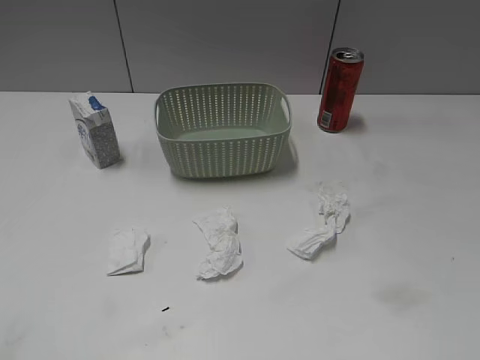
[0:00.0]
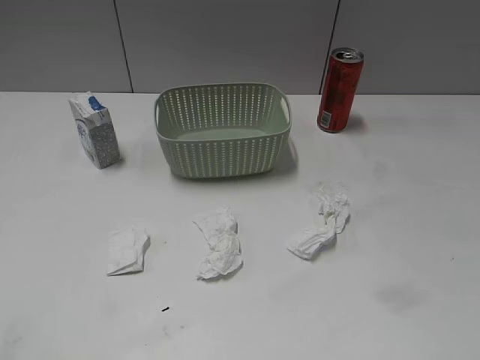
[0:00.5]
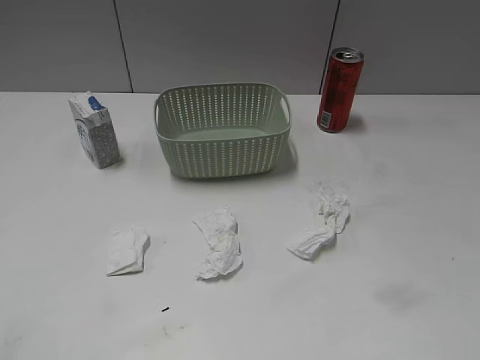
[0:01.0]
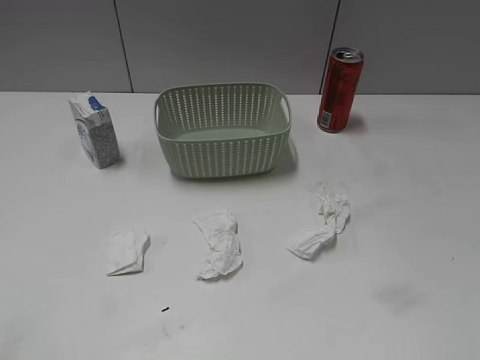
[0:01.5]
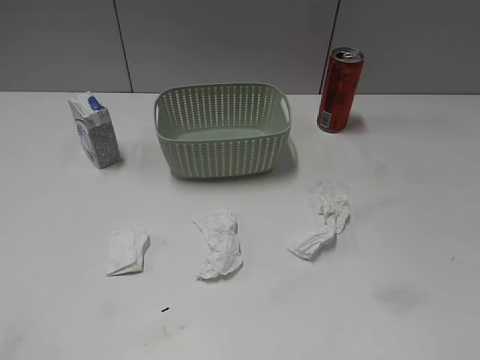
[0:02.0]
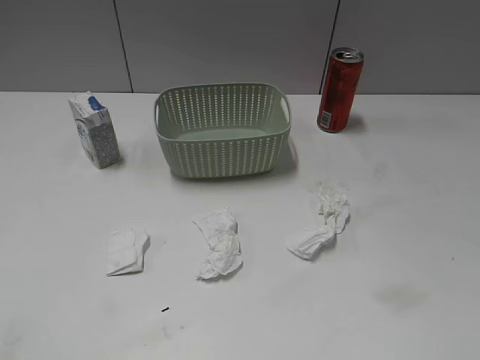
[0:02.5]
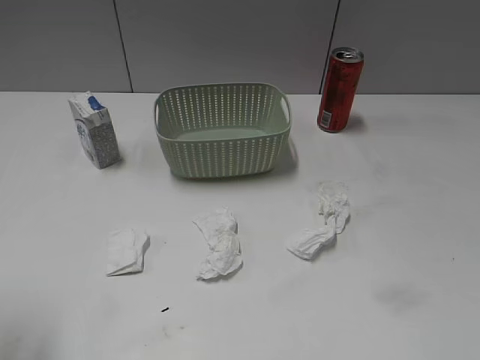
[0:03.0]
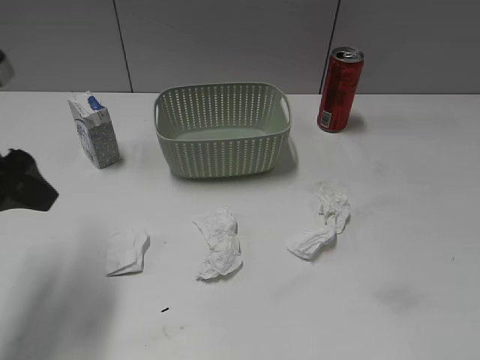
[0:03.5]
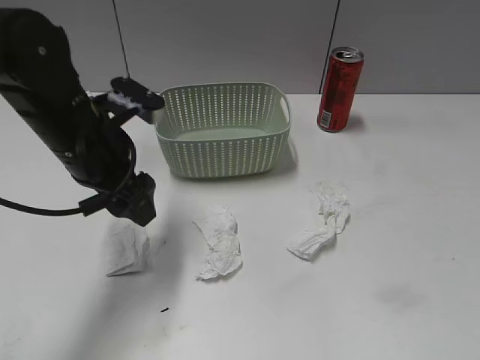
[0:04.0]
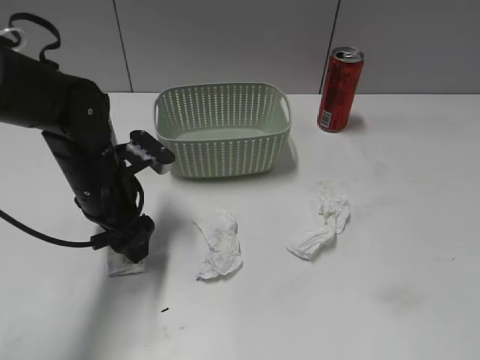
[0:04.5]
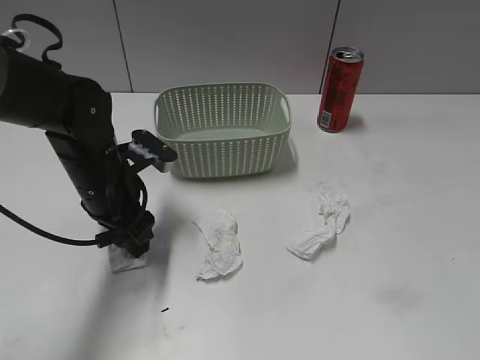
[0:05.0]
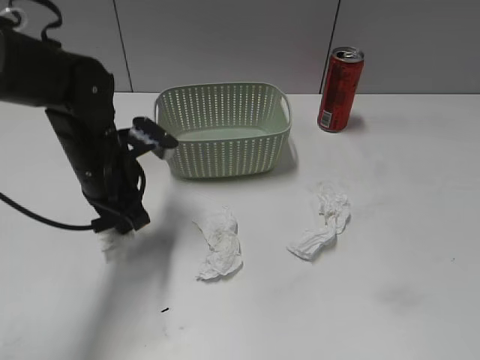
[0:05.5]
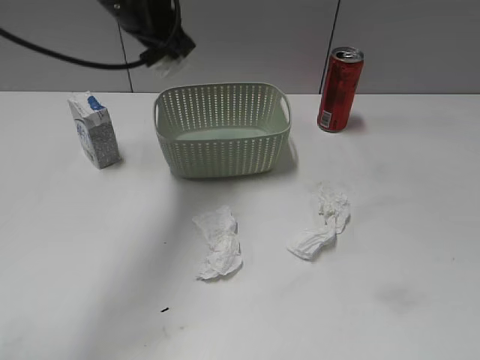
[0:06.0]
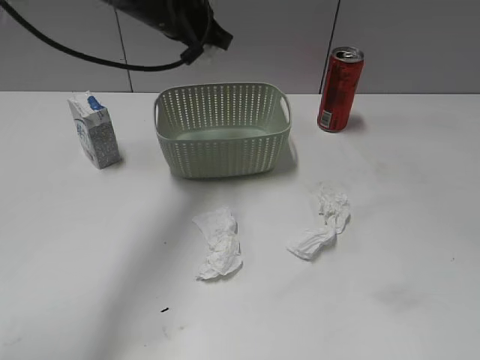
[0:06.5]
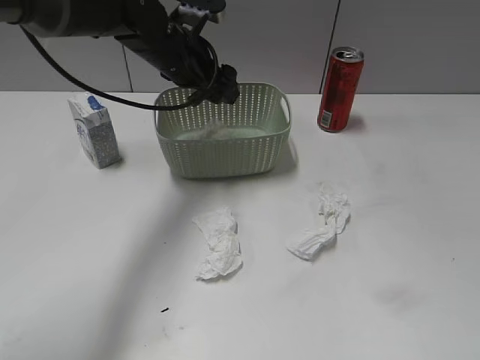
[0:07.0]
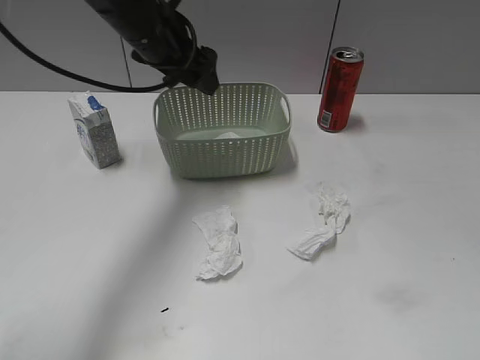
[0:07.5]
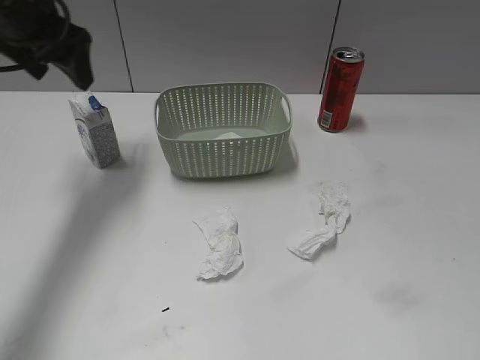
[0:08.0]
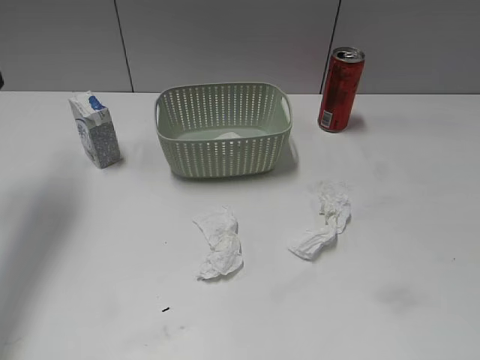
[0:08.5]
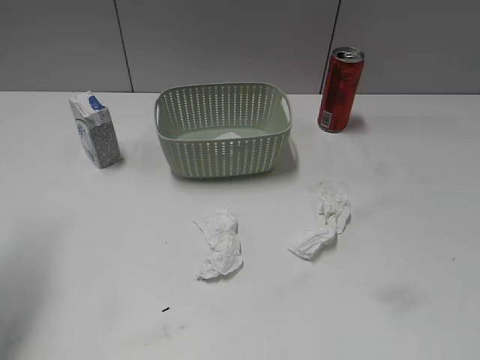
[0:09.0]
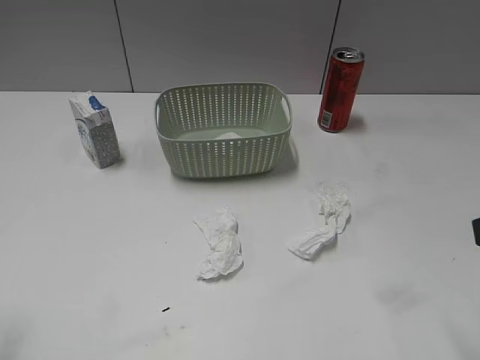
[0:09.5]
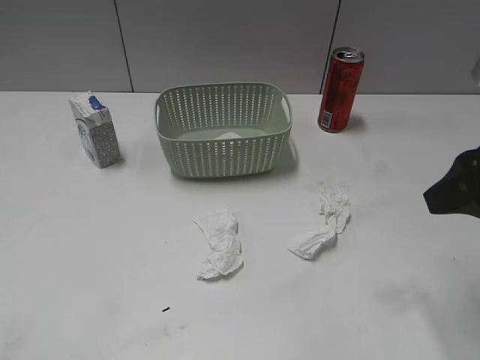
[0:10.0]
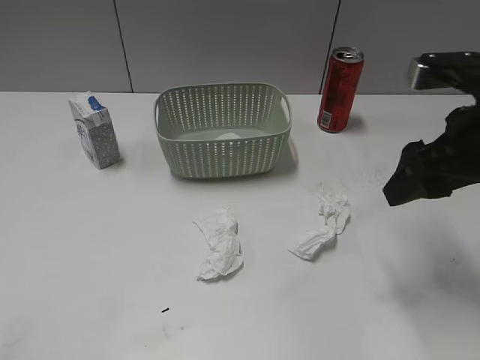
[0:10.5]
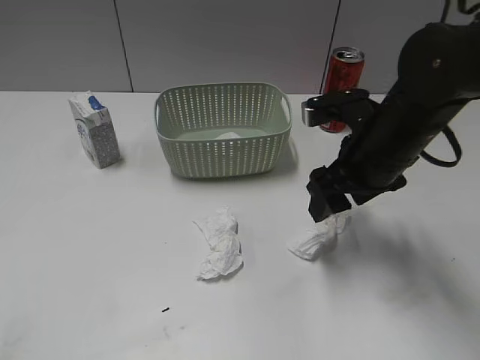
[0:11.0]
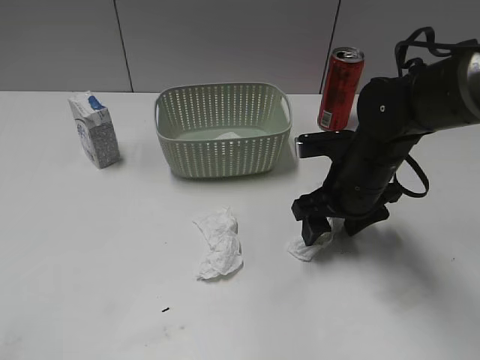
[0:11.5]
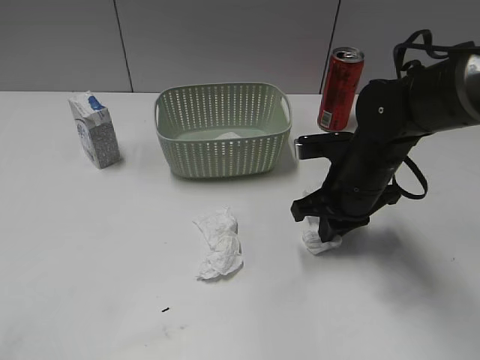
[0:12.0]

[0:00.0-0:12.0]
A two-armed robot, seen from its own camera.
Step, 0:03.5 to 0:05.0: Grasp the waste paper with left gripper.
Step, 0:05.5 to 0:07.5: Place the waste paper in the basket with left gripper.
0:02.0 to 0:04.0: The left gripper shifts some 35 cm forward and to the right.
0:04.0 to 0:06.0: The left gripper travels upward and forward by roughly 15 cm, and closes.
0:06.0 to 0:08.0: The left gripper heads to the left, covering some 10 cm, and opens.
0:08.0 to 0:10.0: The right gripper moves forward, roughly 20 cm; the left gripper moves backward, about 35 cm.
0:10.0 to 0:12.0: The right gripper goes approximately 25 cm downward, forward and to the left, and closes.

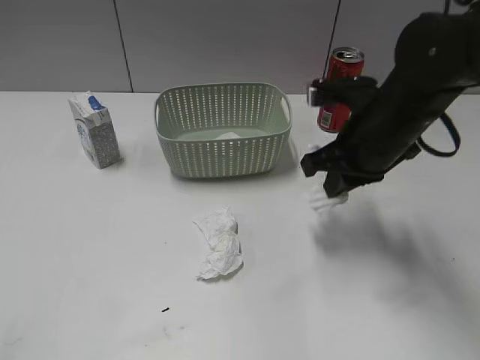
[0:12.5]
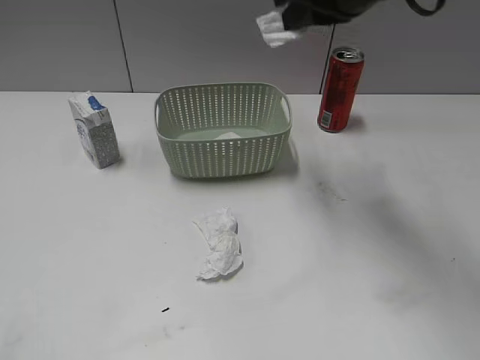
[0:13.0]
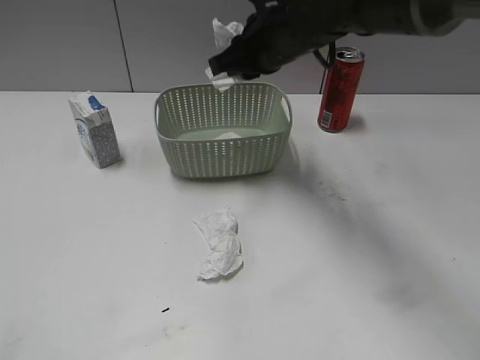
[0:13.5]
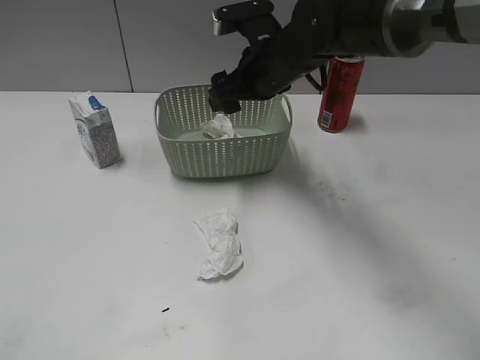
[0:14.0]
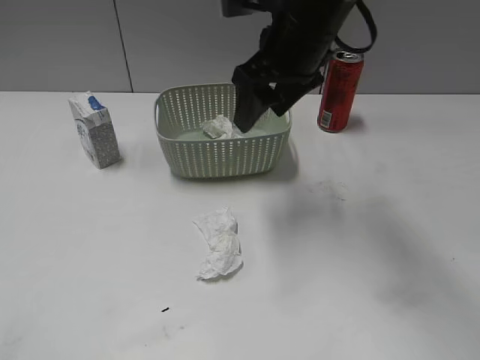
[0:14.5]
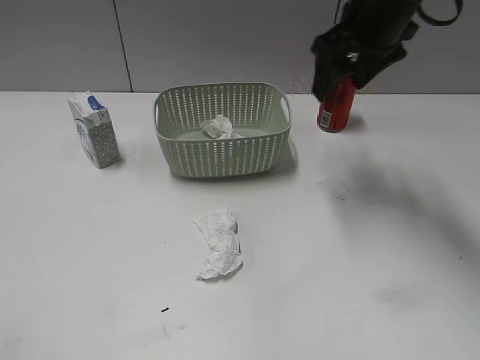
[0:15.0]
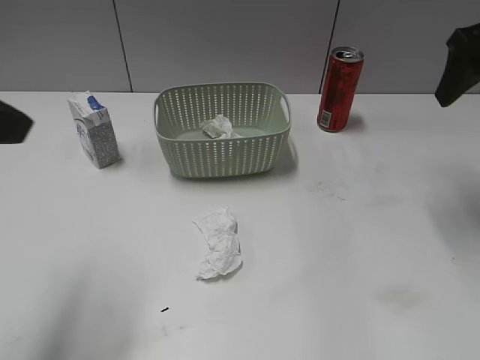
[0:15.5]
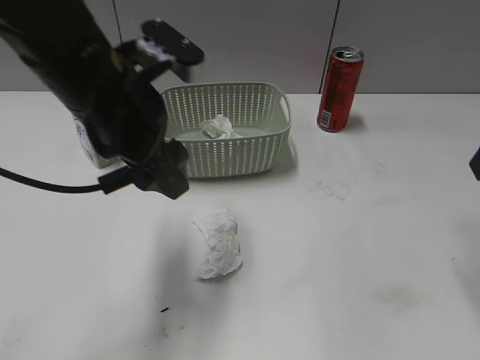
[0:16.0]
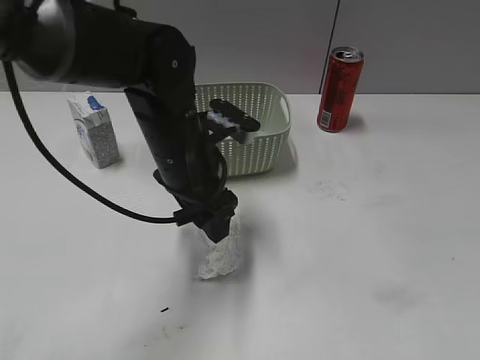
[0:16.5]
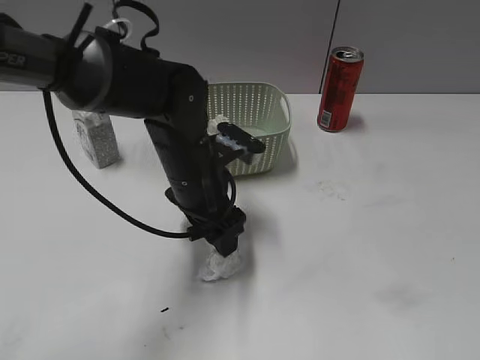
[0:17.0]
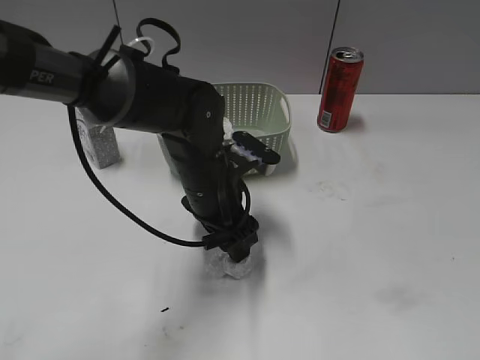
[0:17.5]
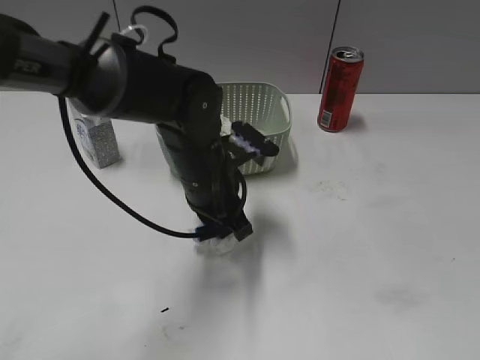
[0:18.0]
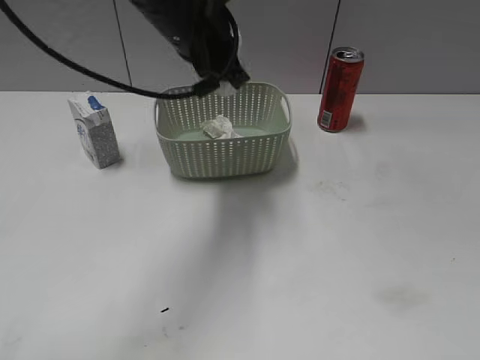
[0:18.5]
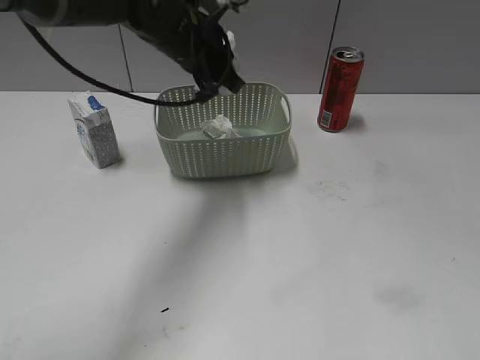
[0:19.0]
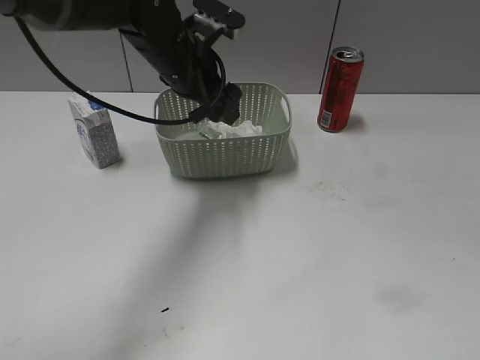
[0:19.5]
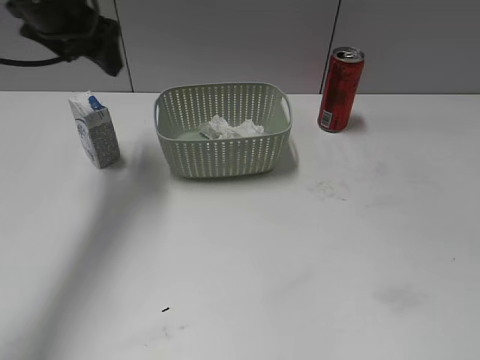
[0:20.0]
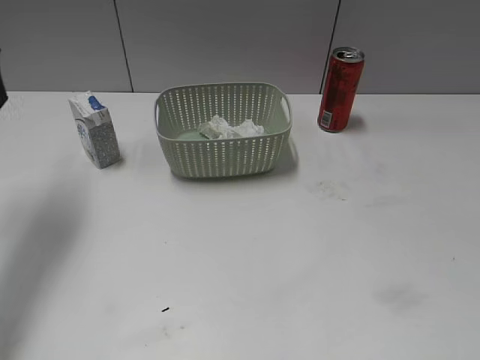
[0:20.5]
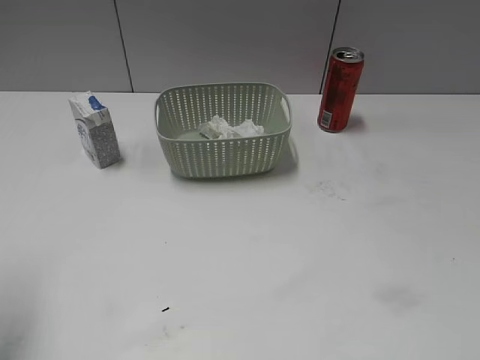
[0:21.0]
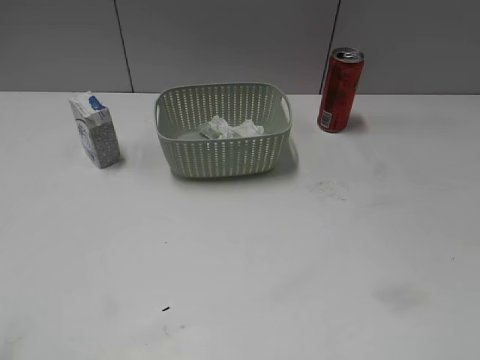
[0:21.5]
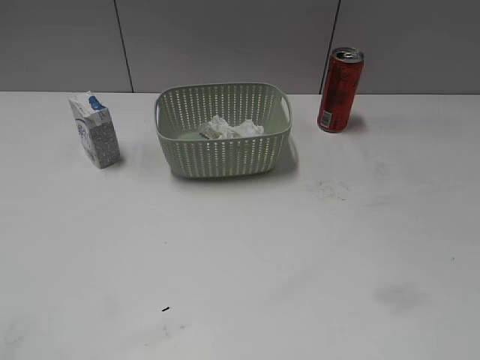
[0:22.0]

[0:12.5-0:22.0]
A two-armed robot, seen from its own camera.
Step, 0:12.5 to 0:14.0: Place the waste paper in the basket with right gripper.
Step, 0:14.5 to 0:18.0: Grasp the waste paper with left gripper.
Step, 0:18.5 to 0:19.5: Place the waste paper in the basket with left gripper.
0:12.5 to 0:14.5: The right gripper goes up and down, some 15 cm each way, reversing 2 times, and opens up.
0:14.5 to 0:16.5: The left gripper is displaced forward and to the right by some 40 cm. Meanwhile the right gripper shifts some 30 cm to the right and backward.
0:16.5 to 0:18.0: The left gripper ends up about 5 cm from where it was, and closes its fingers. Meanwhile the right gripper goes about 10 cm backward.
0:18.0 to 0:20.0: The left gripper swings up and down, some 15 cm each way, with 2 reversals, and opens its fingers.
0:20.0 to 0:22.0: The left gripper goes approximately 35 cm backward.

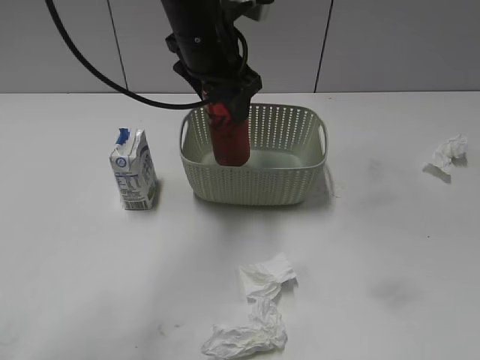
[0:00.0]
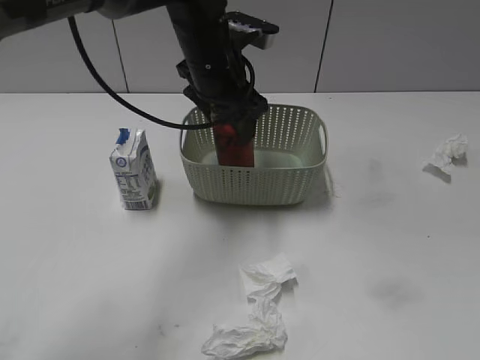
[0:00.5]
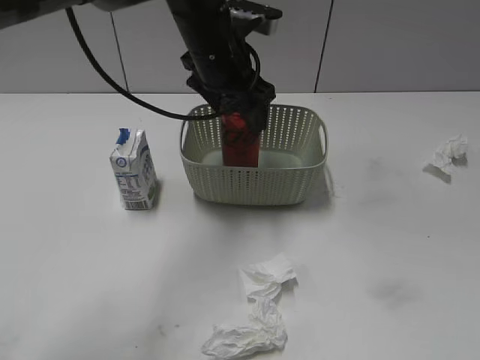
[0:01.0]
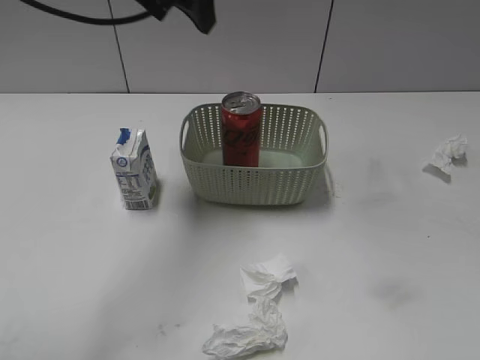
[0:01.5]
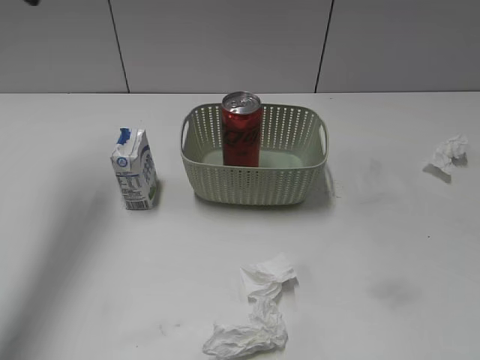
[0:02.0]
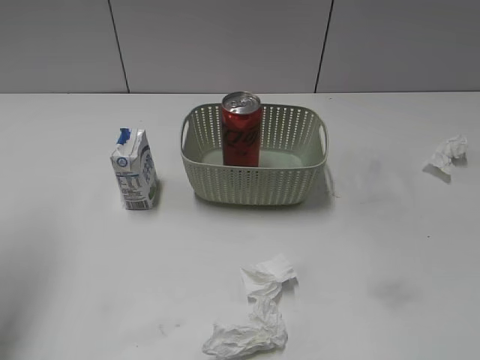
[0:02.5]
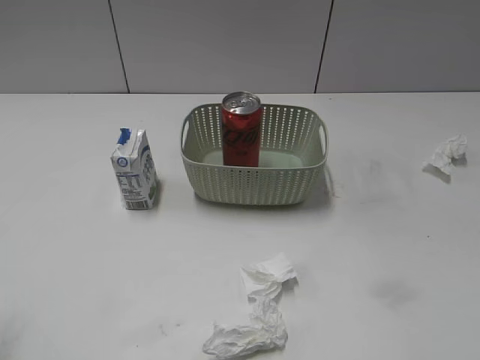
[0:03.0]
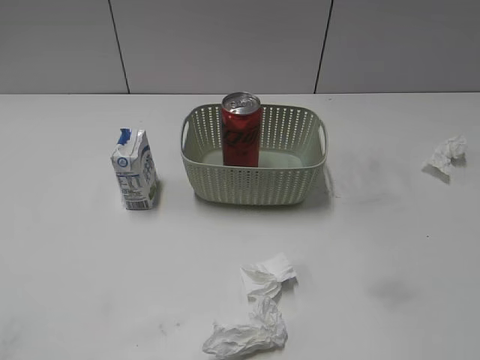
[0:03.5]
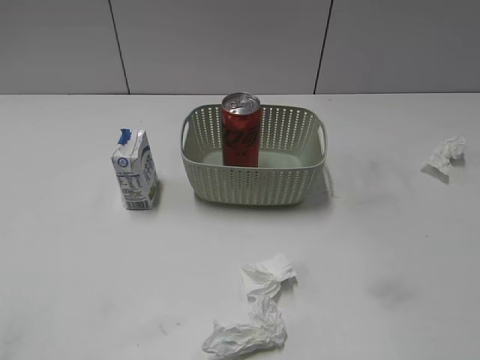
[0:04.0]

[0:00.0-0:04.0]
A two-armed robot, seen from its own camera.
0:00.0 to 0:02.0: The left gripper is displaced to the left and upward by approximately 25 cm.
0:02.0 to 0:04.0: The left gripper is displaced backward by approximately 40 cm.
